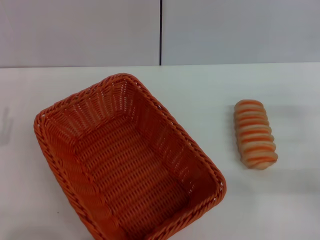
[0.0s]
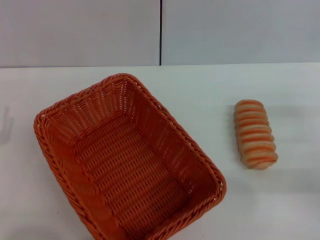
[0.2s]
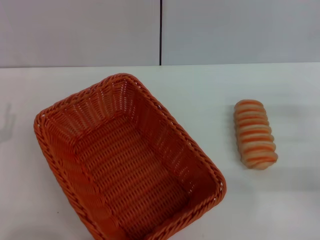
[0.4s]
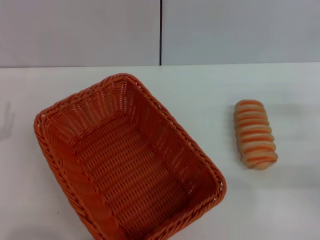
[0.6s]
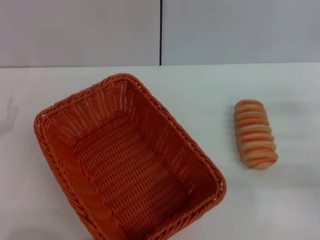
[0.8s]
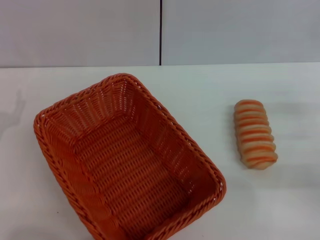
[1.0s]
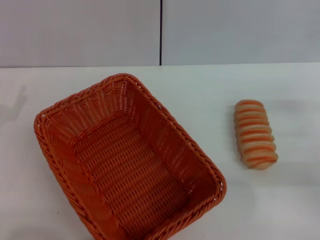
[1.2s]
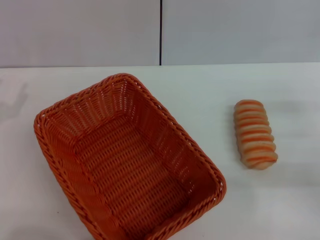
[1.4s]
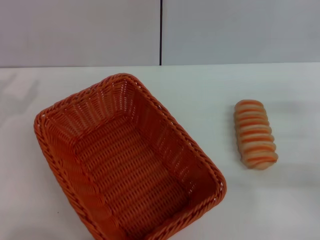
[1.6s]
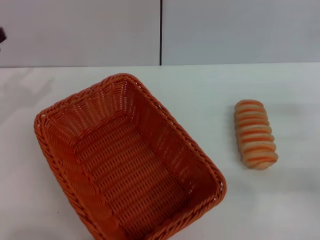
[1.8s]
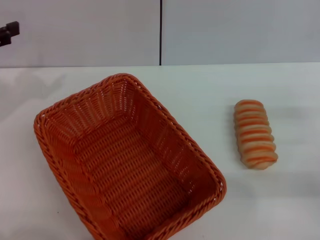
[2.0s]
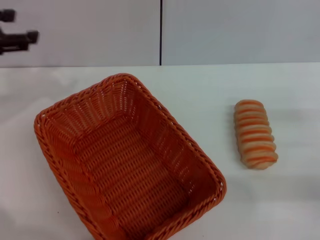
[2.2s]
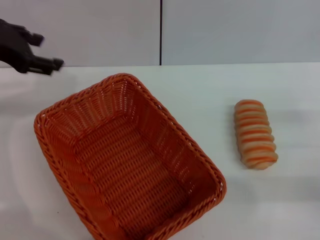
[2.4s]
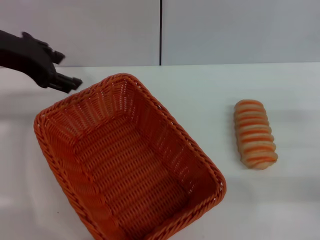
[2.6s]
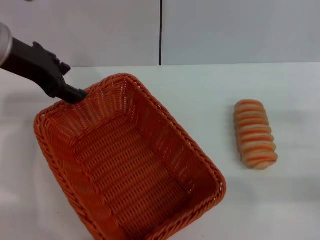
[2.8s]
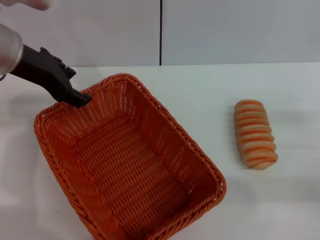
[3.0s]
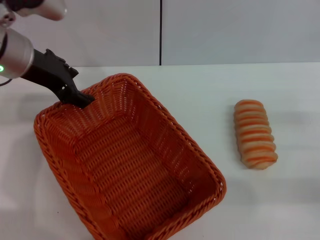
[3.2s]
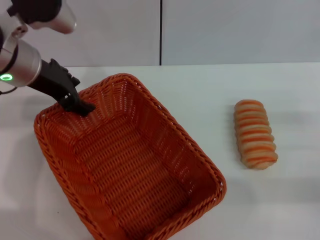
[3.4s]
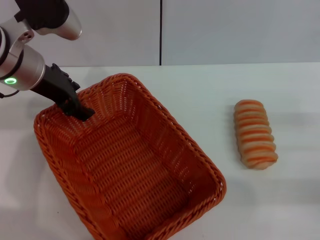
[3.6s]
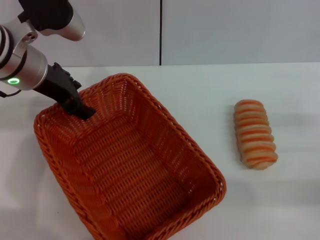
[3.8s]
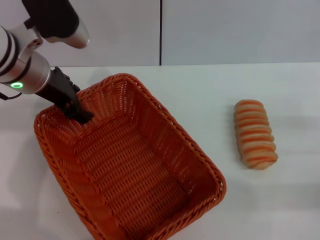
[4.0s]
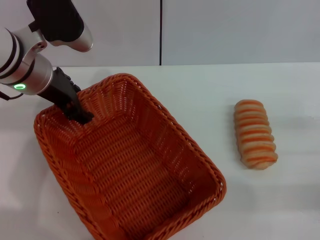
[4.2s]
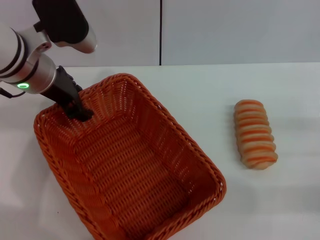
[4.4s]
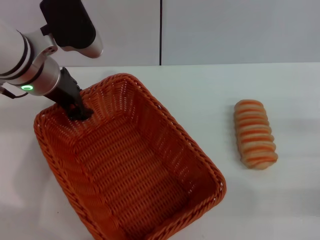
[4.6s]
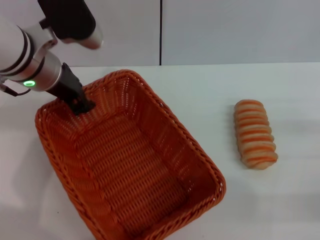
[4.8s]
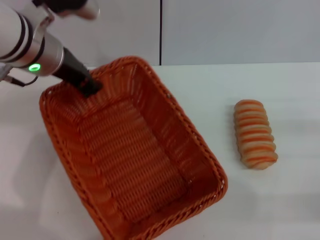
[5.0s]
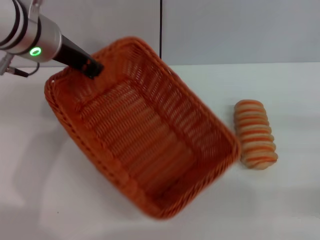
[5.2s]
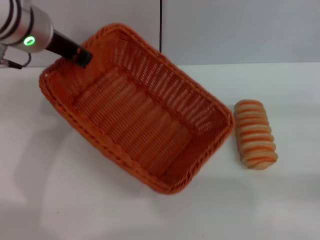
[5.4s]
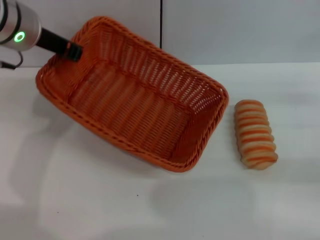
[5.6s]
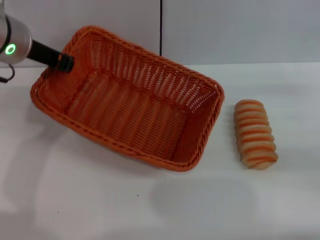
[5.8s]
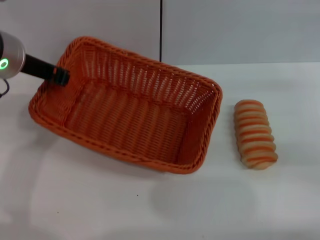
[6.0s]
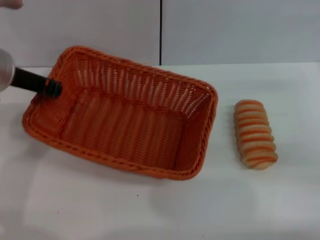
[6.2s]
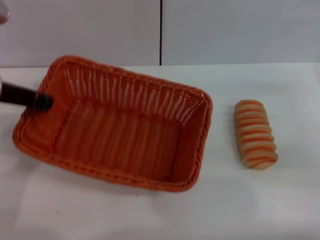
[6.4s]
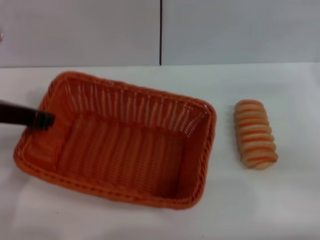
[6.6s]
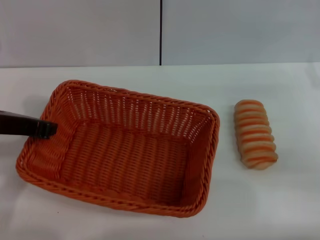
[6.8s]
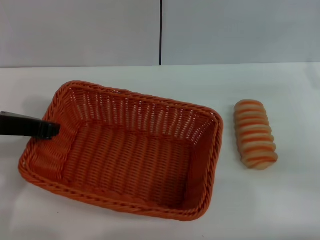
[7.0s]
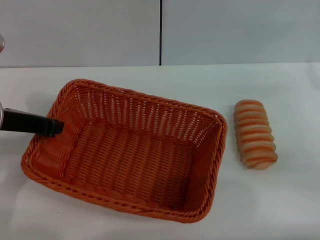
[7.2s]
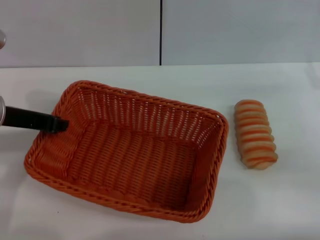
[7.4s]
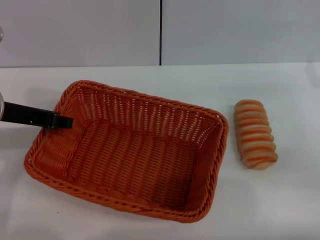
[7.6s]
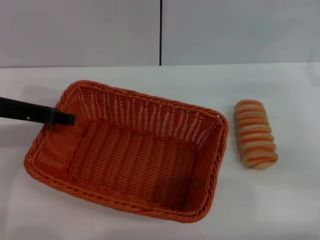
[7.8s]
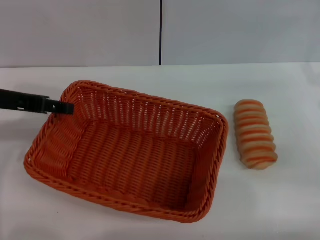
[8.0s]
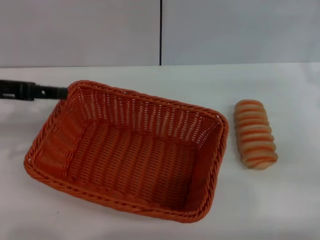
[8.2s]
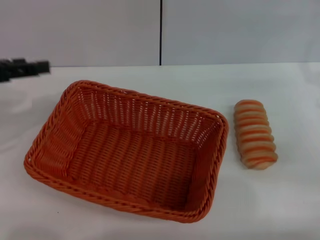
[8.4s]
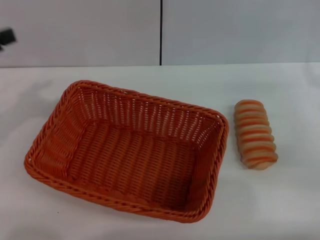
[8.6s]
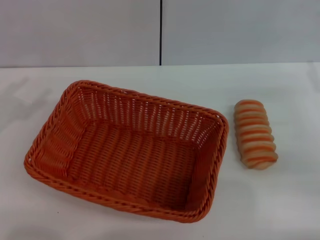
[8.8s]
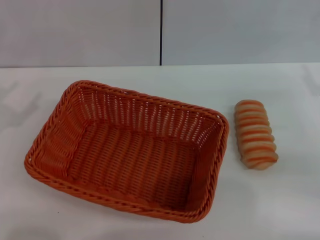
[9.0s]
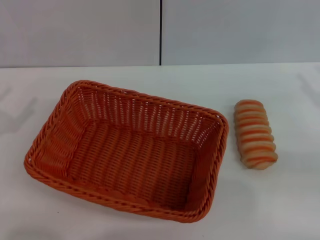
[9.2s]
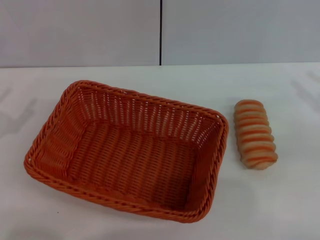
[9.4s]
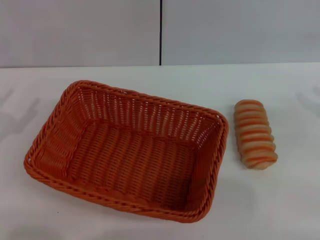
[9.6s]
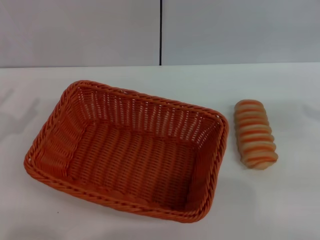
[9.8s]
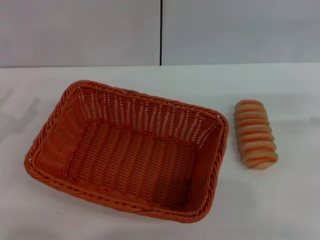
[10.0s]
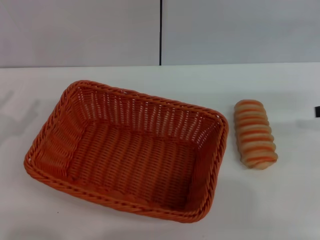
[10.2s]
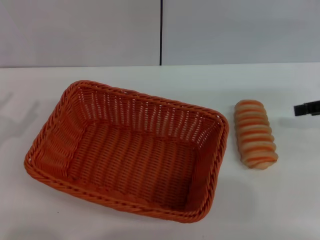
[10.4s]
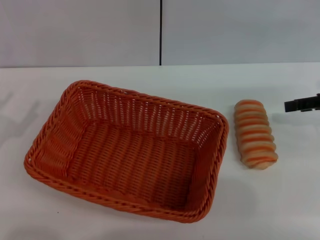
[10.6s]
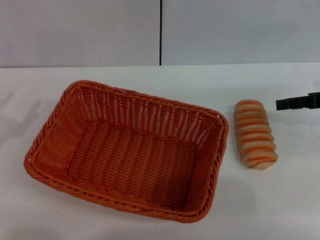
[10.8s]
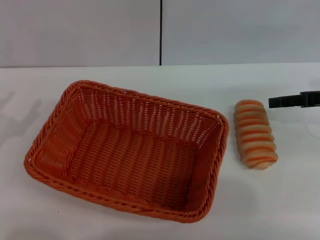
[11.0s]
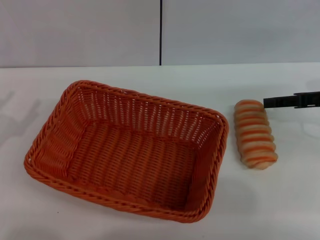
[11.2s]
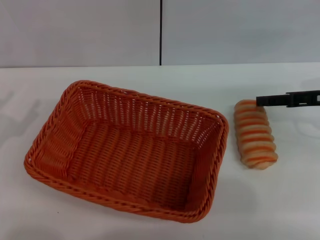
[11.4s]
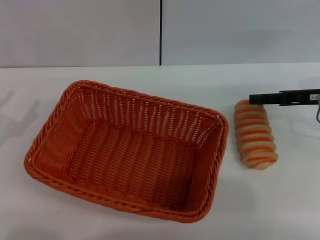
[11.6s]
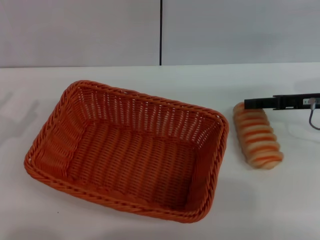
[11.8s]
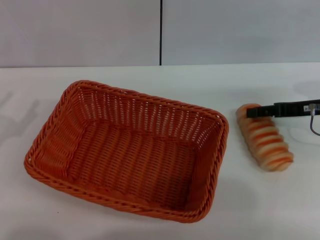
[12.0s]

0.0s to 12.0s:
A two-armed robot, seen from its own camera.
Step, 0.0s to 5.0s: Pick up the light basket with the left gripper.
Step, 5.2s to 8.0s: Place the light basket in the center of view with the left gripper.
1.6s to 3.0s: The left gripper moves to the right, upward and forward, approximately 20 cm.
3.0s to 4.4s: The left gripper shifts by roughly 5 cm.
4.4s to 6.0s: The right gripper heads forward and upward, covering roughly 10 cm; the left gripper closes up.
6.0s to 7.6s: The left gripper is displaced backward by roughly 5 cm.
7.6s to 9.0s: The left gripper moves to the left and backward, about 15 cm, and opens.
10.4s to 12.0s: The right gripper moves downward, approximately 5 cm.

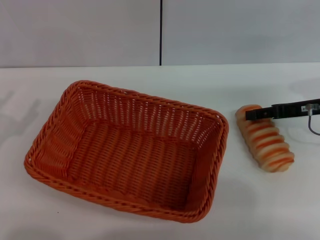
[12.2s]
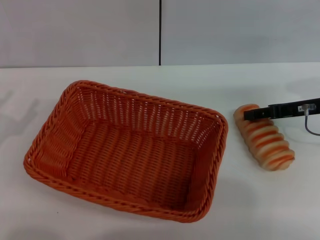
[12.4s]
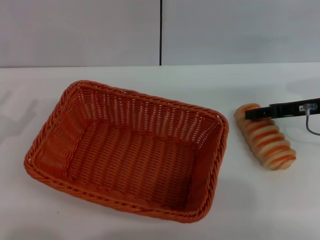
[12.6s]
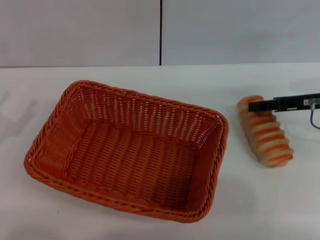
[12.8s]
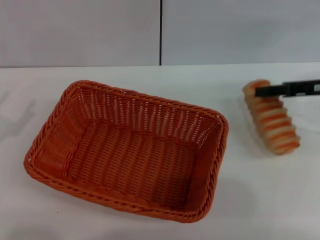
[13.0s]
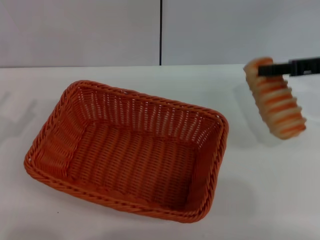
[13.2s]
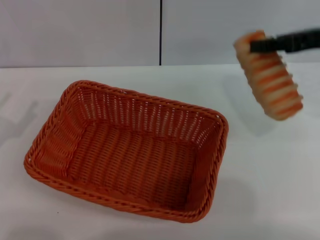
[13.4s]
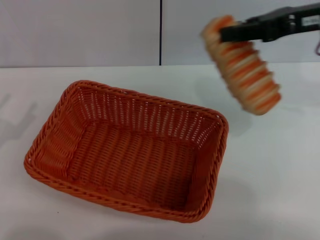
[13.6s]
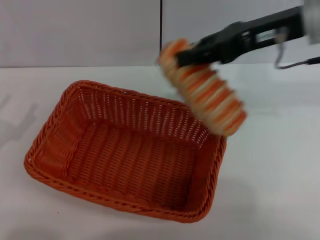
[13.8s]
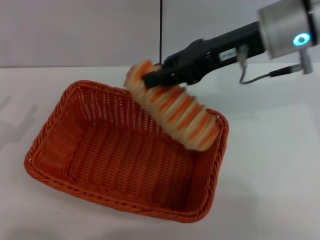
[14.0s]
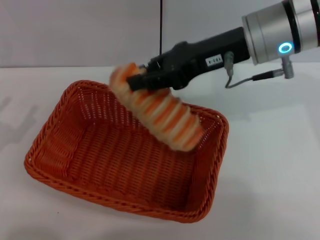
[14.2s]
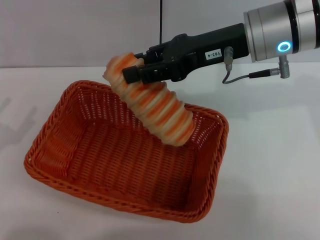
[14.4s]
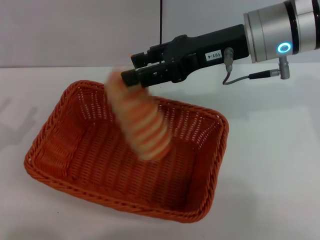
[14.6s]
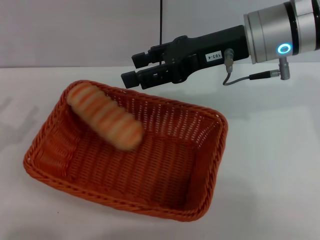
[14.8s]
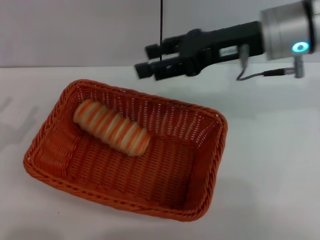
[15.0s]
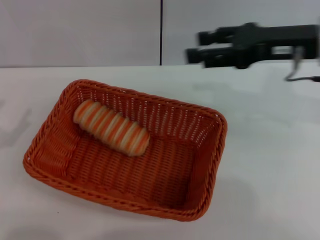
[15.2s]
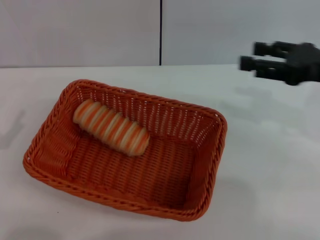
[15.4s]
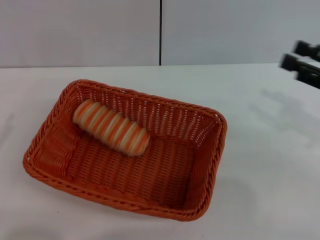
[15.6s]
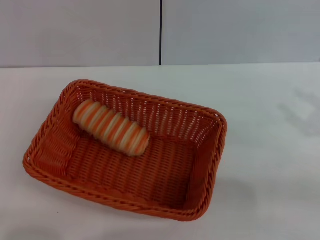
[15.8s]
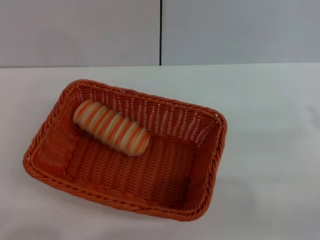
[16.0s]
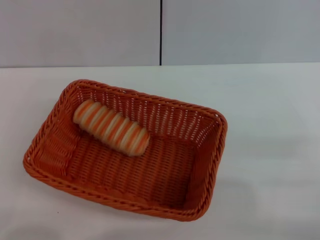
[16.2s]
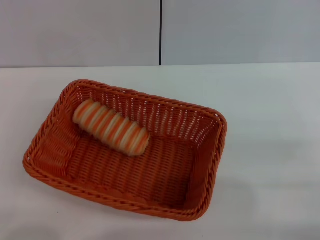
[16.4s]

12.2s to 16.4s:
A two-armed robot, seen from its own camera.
Step, 13.4s to 14.6s: Place the long bread into the light basket with the right gripper.
12.2s to 13.6s: The right gripper is displaced upward by roughly 15 cm, and closes its fingers.
13.6s to 15.0s: The right gripper travels to the left by about 10 cm, and opens.
15.0s to 16.4s: The right gripper goes approximately 30 cm to the right, backward and downward, while the left gripper moves backward, approximately 10 cm.
